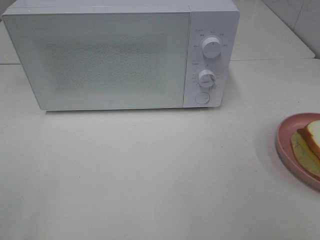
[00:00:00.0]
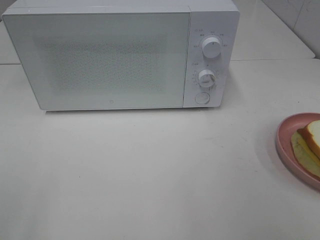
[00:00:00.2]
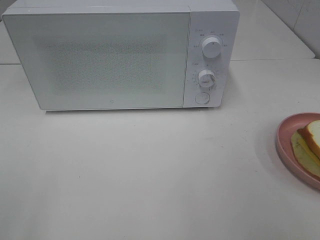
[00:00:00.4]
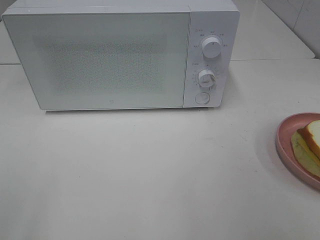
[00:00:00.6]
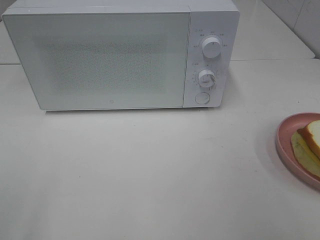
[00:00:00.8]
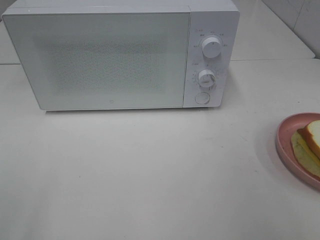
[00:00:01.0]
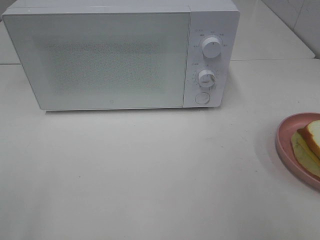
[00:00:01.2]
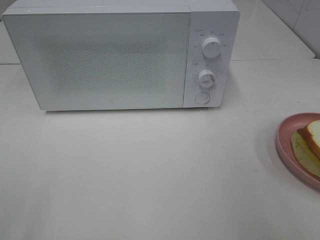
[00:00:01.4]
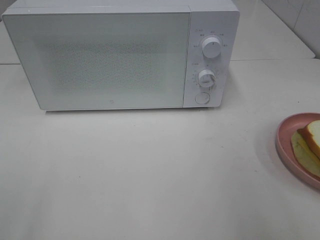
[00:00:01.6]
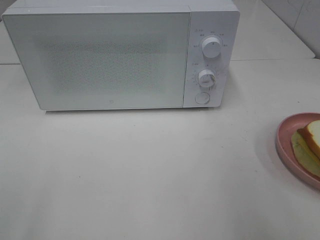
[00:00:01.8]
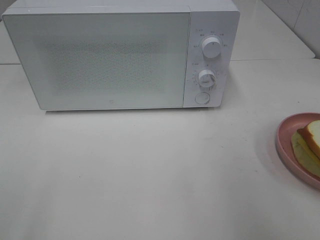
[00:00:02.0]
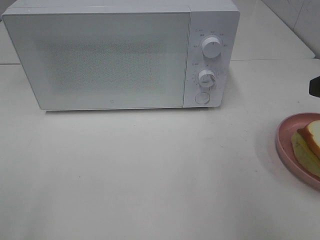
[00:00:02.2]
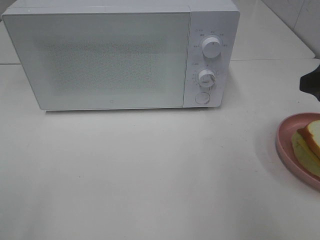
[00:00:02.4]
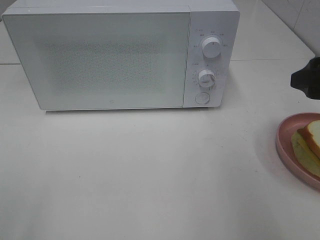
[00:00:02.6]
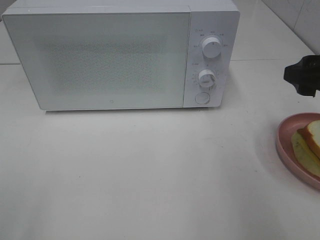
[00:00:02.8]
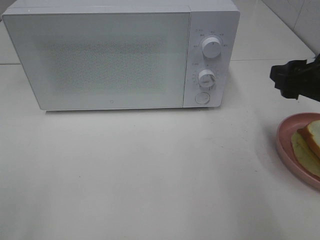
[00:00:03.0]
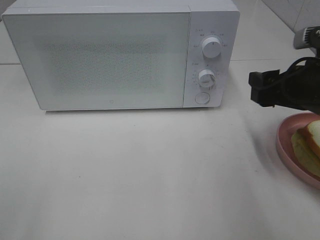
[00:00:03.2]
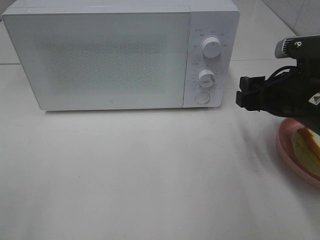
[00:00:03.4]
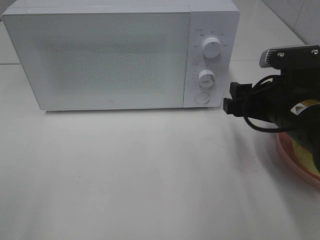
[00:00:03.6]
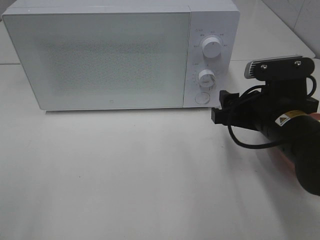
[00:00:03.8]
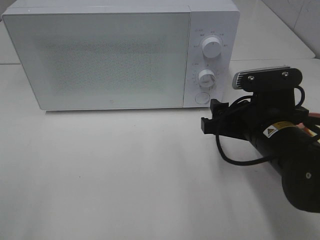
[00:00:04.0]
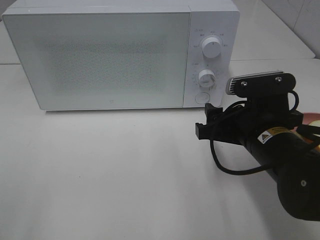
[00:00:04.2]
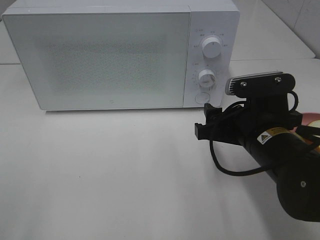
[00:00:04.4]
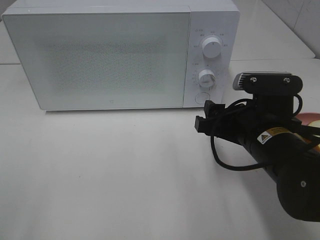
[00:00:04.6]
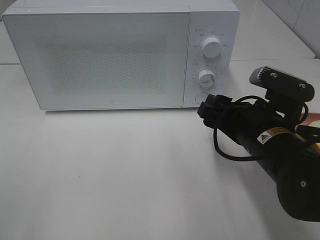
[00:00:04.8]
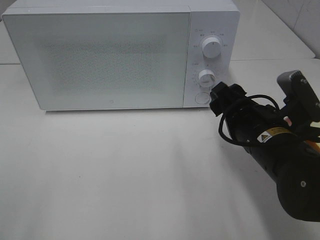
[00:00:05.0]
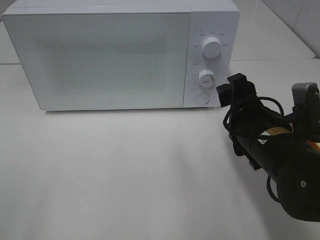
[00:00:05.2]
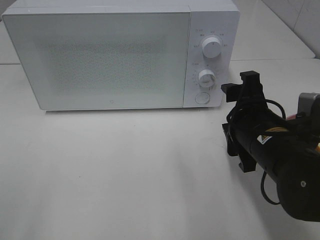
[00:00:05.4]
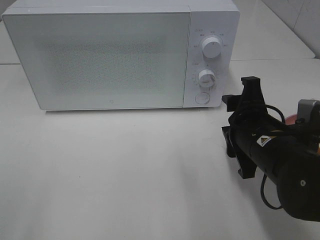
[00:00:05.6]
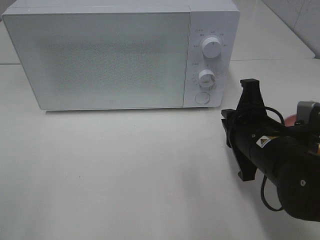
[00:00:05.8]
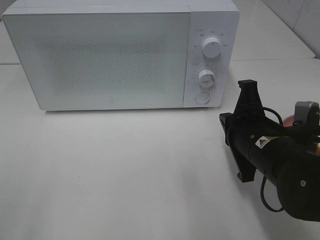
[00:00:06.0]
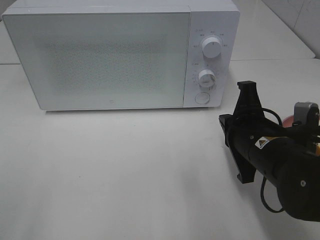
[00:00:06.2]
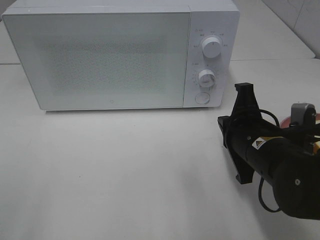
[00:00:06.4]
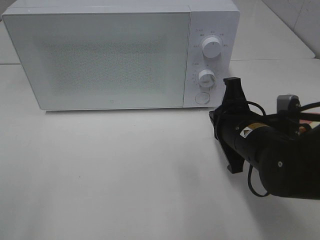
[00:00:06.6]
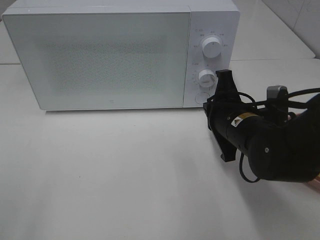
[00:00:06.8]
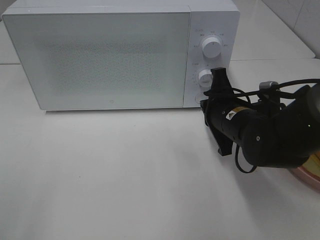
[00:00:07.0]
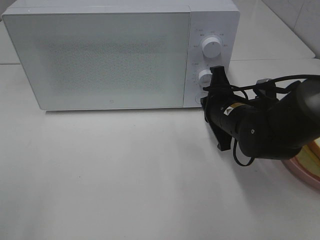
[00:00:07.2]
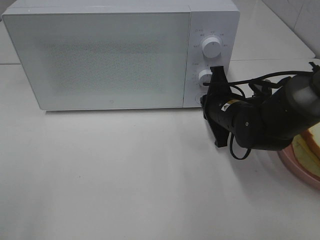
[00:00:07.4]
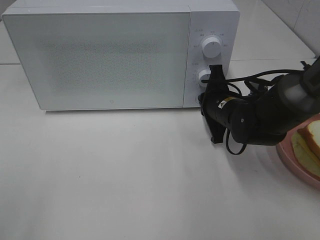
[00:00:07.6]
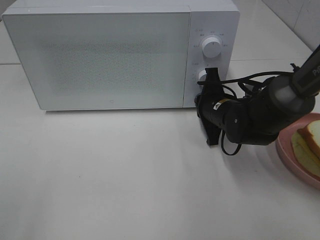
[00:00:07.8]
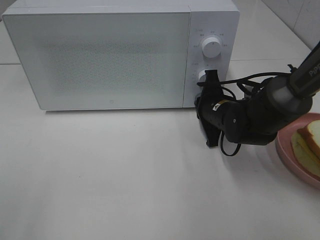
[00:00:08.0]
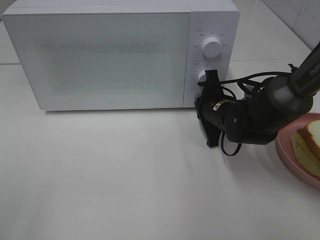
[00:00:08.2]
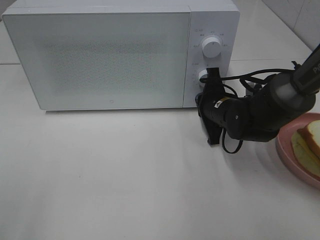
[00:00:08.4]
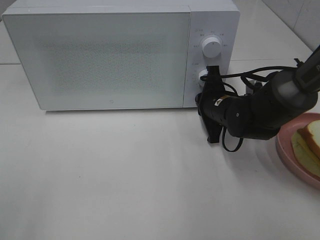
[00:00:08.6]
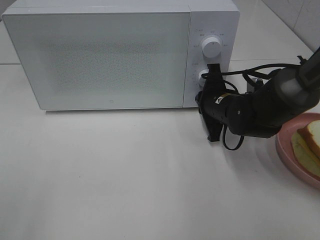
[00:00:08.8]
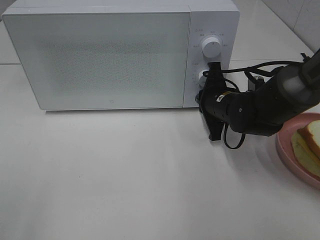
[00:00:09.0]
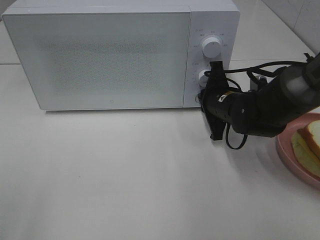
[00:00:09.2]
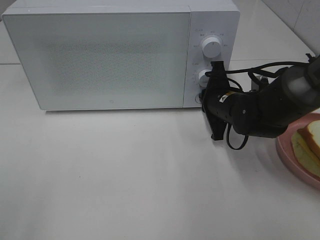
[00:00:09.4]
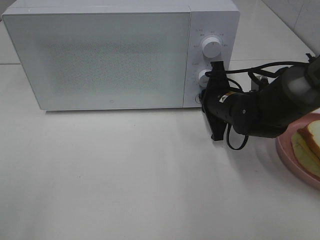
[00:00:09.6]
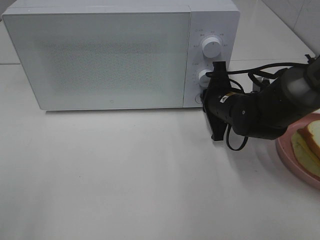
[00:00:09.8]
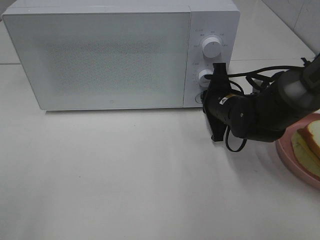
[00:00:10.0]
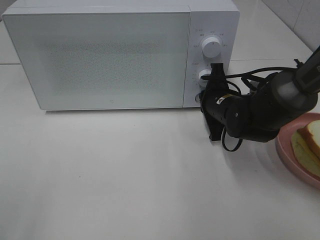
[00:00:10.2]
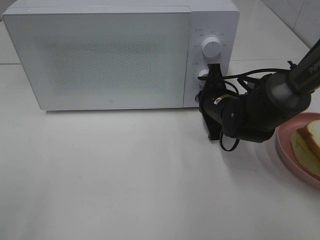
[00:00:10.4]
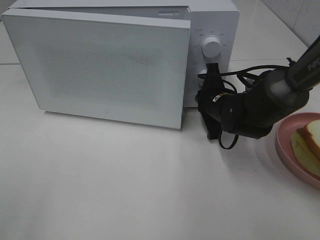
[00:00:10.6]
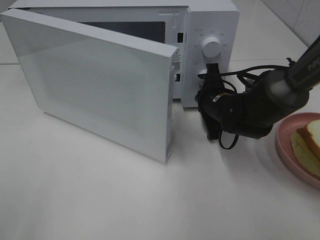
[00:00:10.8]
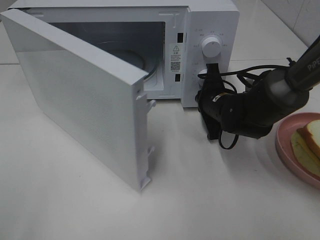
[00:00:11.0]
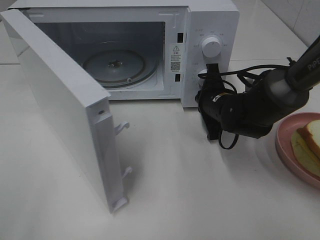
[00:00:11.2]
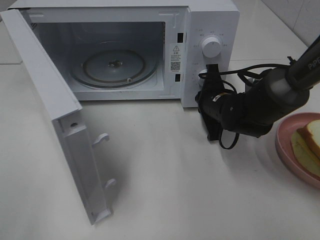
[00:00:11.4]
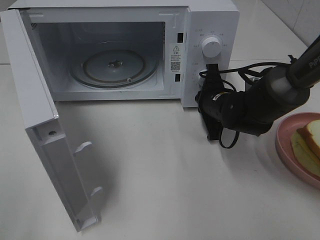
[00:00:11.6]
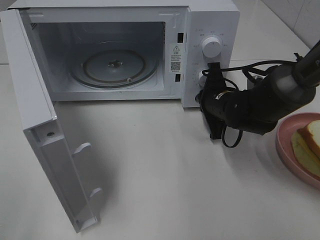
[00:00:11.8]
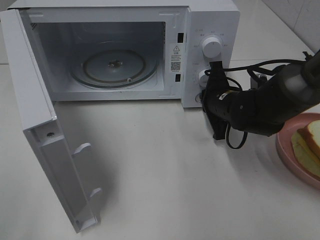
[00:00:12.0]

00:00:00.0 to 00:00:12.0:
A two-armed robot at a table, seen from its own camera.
Task of the whole recording: Heat Sandwich.
00:00:01.6 to 00:00:03.0: The right gripper shifts about 15 cm forward and downward.
00:00:03.0 to 00:00:04.4: The right gripper goes roughly 15 cm to the left and downward.
00:00:04.4 to 00:00:06.0: The right gripper closes its fingers.
00:00:06.0 to 00:00:07.6: The right gripper goes some 15 cm forward.
00:00:07.6 to 00:00:10.4: The grippers make only small movements.

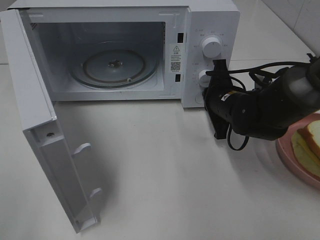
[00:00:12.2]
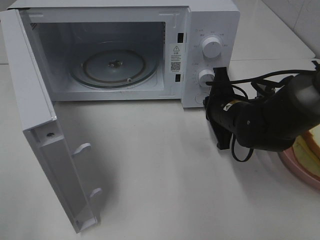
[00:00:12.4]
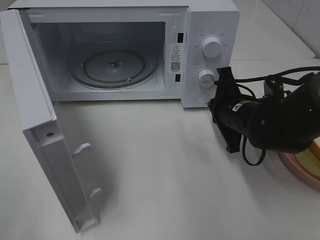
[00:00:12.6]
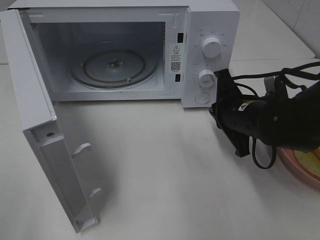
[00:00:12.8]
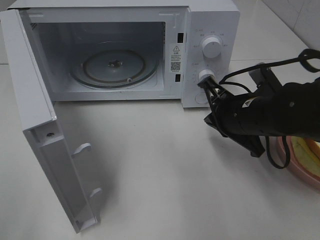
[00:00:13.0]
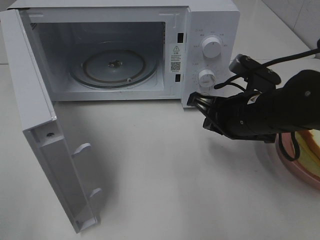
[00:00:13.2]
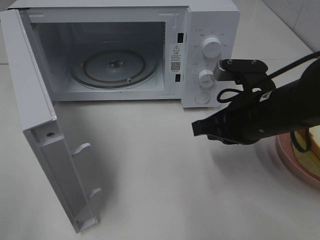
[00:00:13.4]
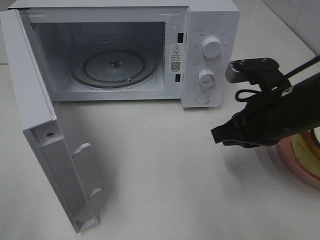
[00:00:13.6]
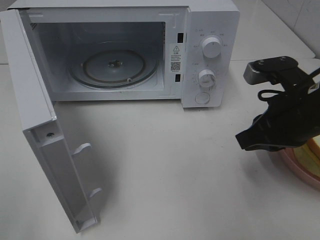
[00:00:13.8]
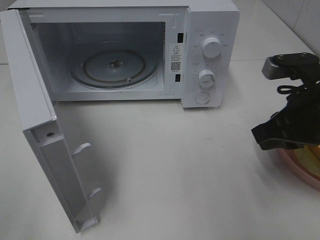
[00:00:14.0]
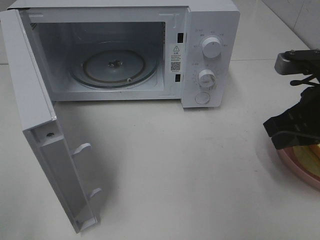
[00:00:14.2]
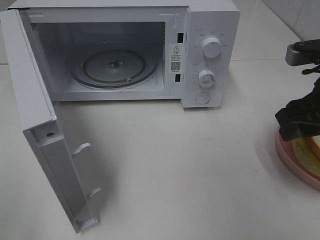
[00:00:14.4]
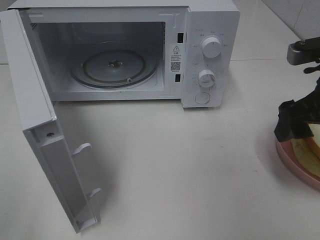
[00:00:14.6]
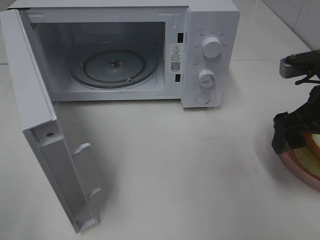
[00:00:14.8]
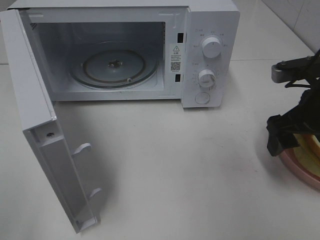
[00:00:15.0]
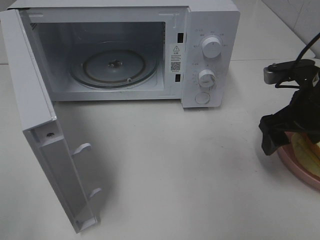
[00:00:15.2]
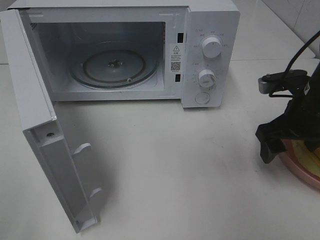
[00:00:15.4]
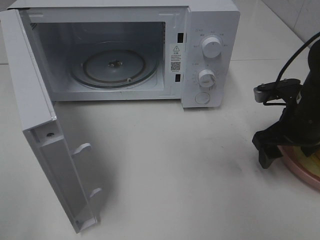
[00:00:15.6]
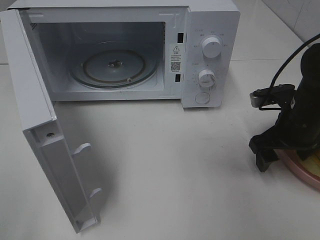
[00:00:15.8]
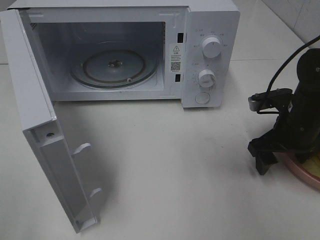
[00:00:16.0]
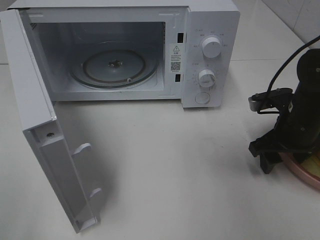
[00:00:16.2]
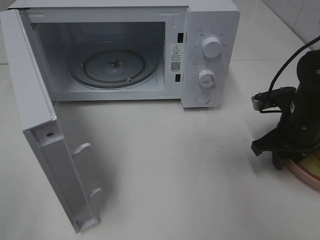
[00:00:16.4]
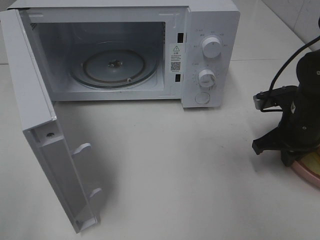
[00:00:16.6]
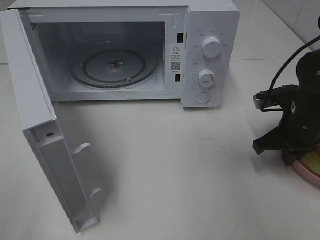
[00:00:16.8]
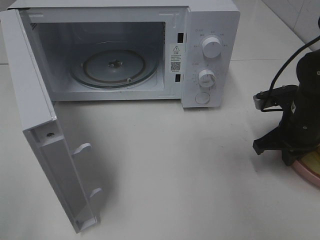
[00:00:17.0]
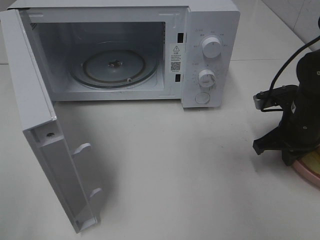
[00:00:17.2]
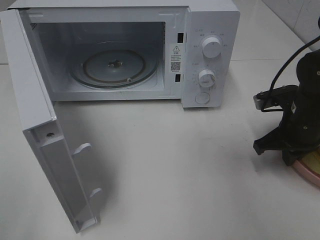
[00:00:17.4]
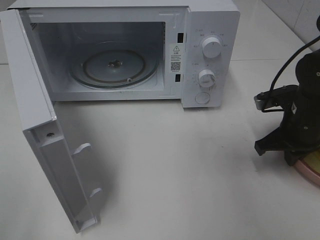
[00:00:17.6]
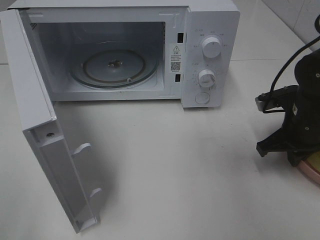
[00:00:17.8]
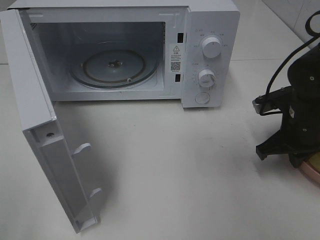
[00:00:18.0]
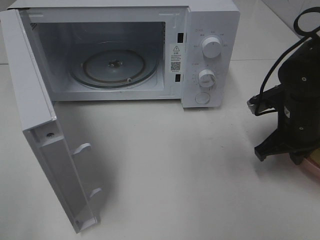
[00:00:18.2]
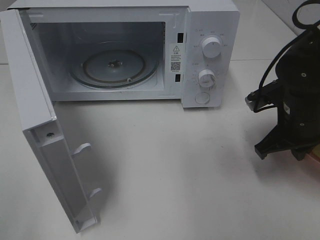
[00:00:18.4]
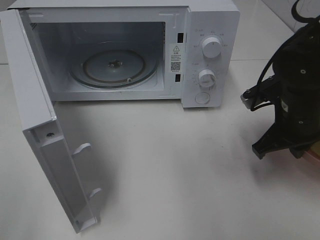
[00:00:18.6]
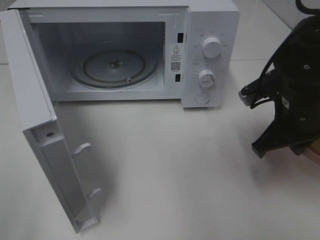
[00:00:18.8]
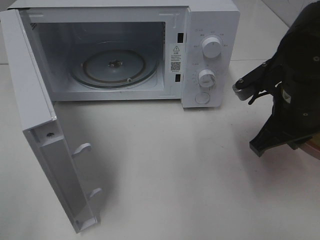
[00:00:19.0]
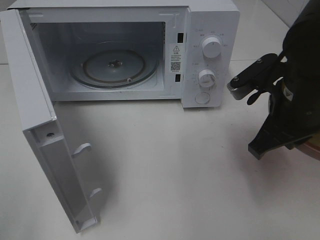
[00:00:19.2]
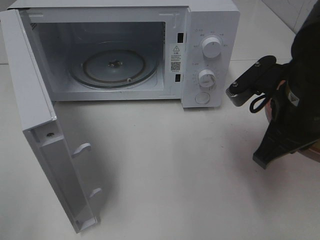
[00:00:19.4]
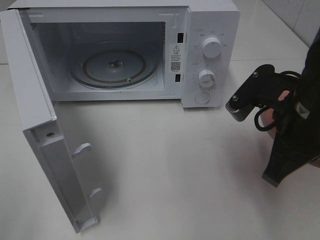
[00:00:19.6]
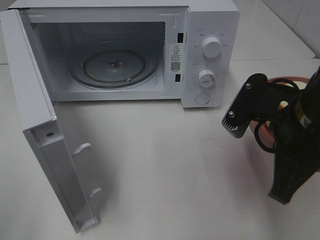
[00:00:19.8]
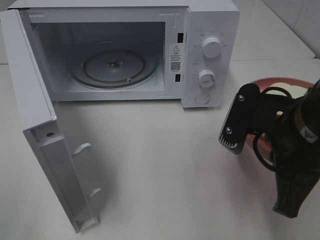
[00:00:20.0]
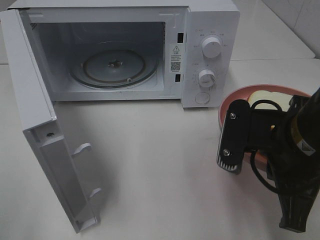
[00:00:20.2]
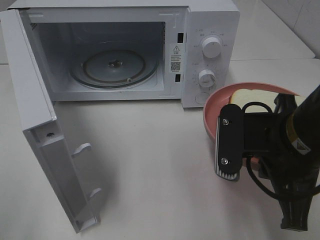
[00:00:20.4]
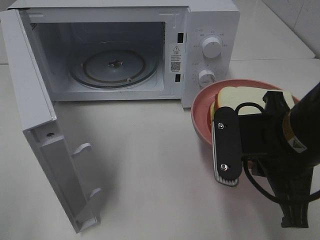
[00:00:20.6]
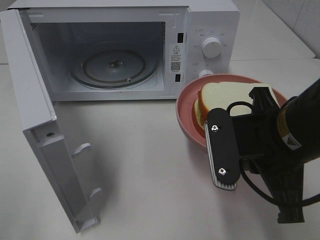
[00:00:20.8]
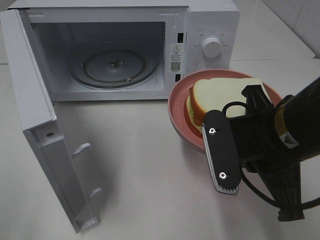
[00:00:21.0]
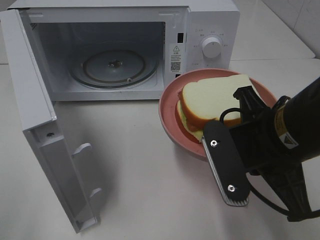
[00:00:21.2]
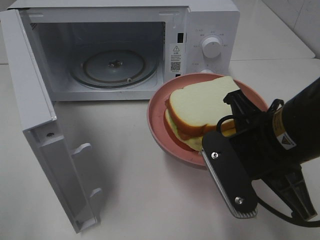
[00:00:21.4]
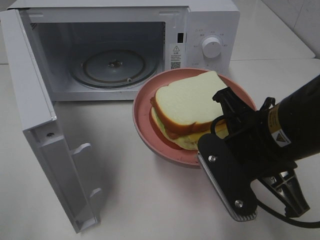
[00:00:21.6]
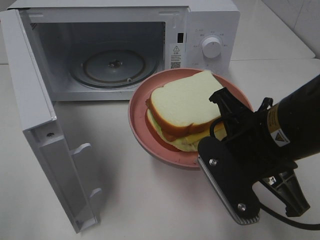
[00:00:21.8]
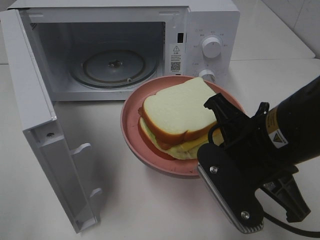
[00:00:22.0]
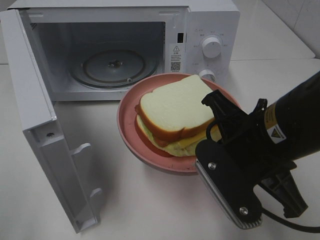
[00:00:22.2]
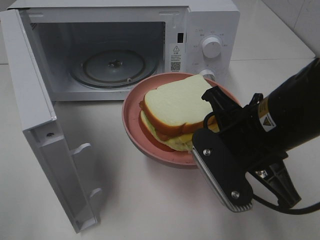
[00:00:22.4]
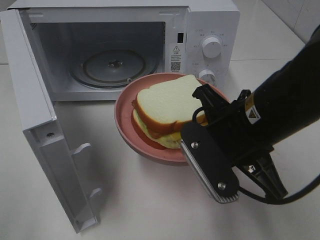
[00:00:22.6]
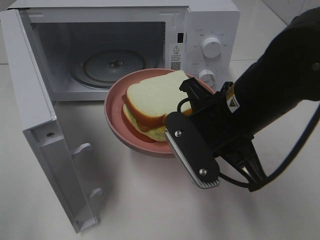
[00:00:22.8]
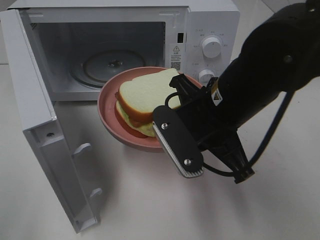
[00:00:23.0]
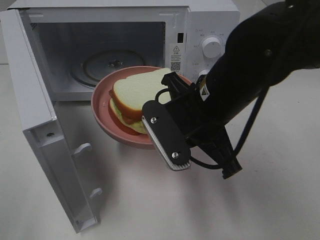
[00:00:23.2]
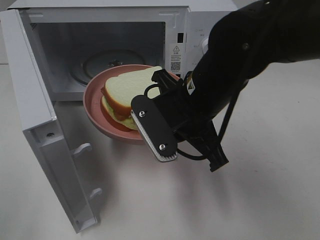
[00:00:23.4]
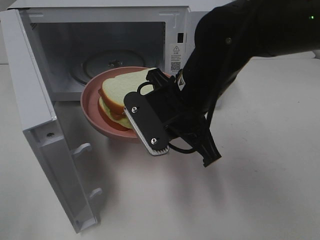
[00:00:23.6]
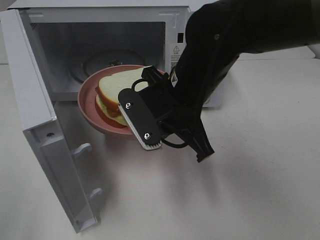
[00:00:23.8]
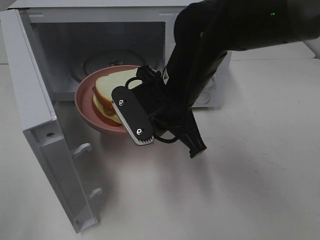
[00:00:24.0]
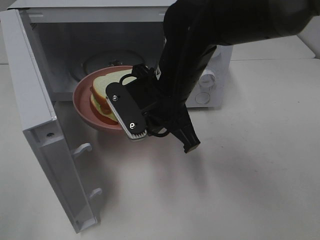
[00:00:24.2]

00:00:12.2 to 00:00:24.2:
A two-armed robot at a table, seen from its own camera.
Task of the whole recording: Heat Sandwich.
Step, 00:00:12.4 to 00:00:17.4: Right hand: grab the plate with the sandwich.
00:00:12.2 to 00:00:13.8: The right gripper travels backward, upward and to the right by about 15 cm.
00:00:13.8 to 00:00:15.2: The right gripper changes place by about 5 cm, and opens up.
00:00:15.2 to 00:00:16.6: The right gripper travels downward by approximately 5 cm, and closes up.
00:00:16.6 to 00:00:18.2: The grippers stay close to where they were, moving slightly.
00:00:18.2 to 00:00:19.8: The right gripper is displaced backward, upward and to the left by roughly 15 cm.
00:00:22.6 to 00:00:24.2: The right gripper is displaced to the left and forward by about 10 cm.
